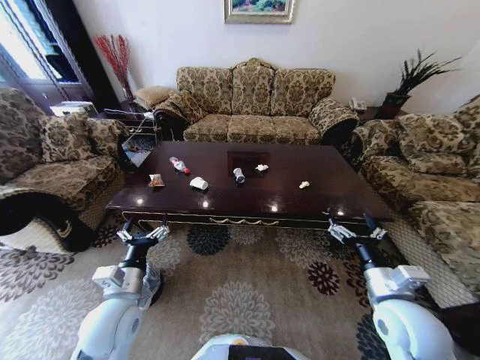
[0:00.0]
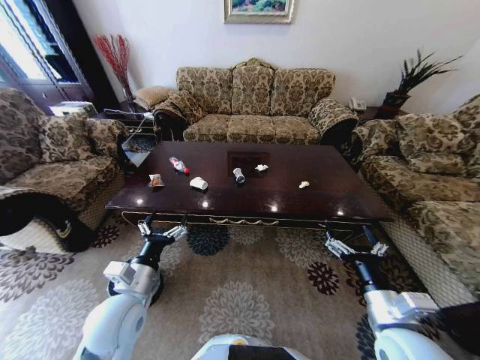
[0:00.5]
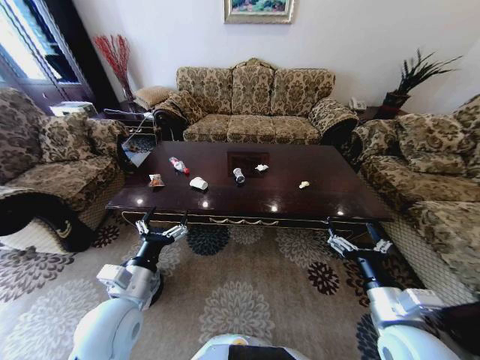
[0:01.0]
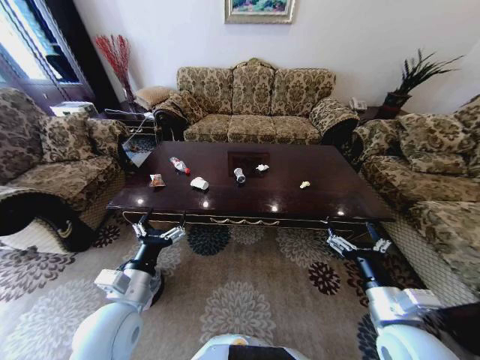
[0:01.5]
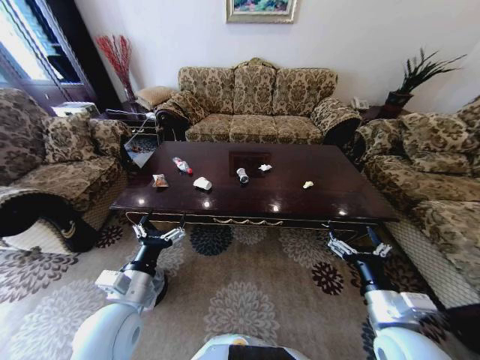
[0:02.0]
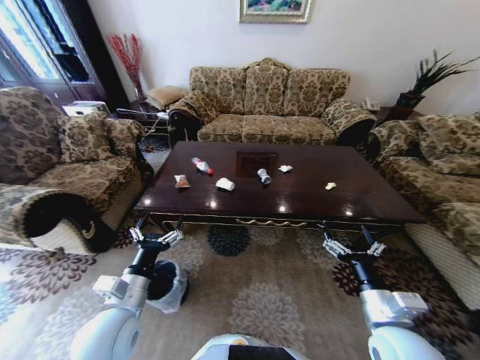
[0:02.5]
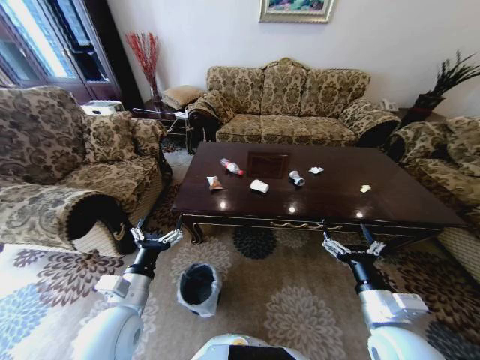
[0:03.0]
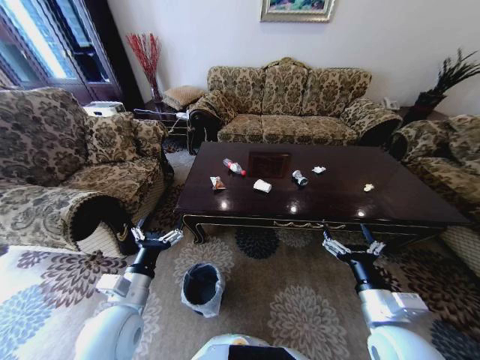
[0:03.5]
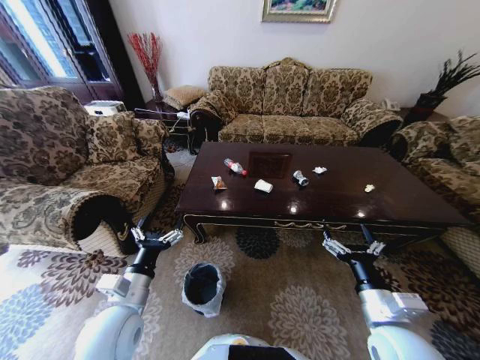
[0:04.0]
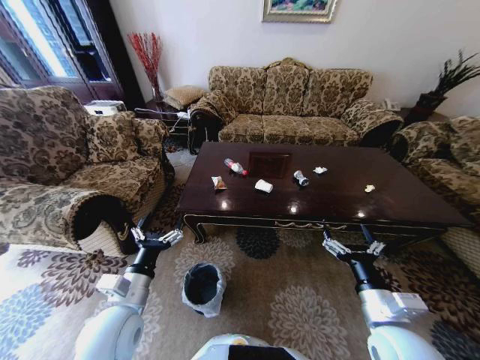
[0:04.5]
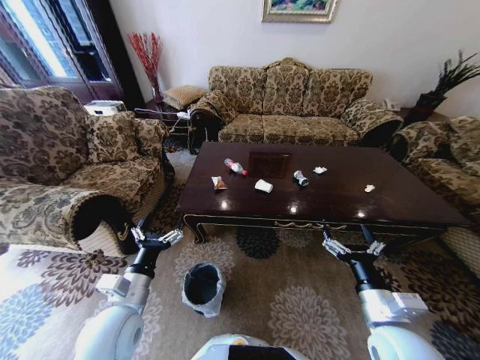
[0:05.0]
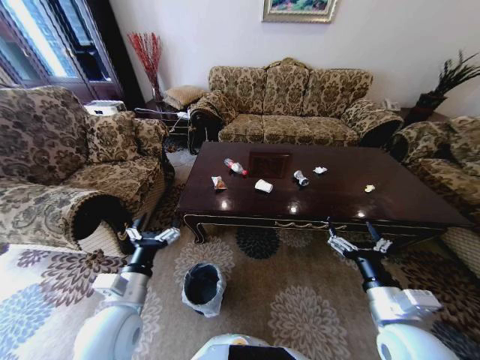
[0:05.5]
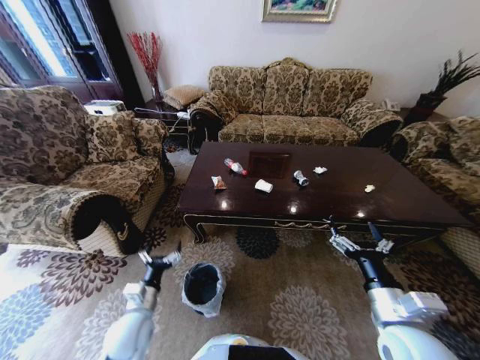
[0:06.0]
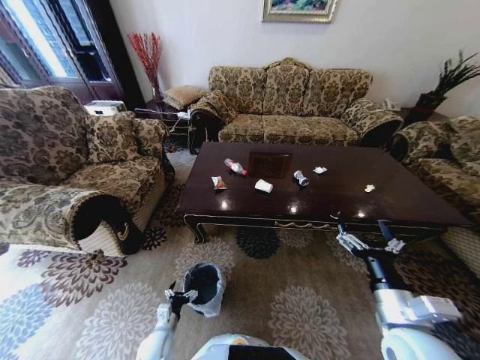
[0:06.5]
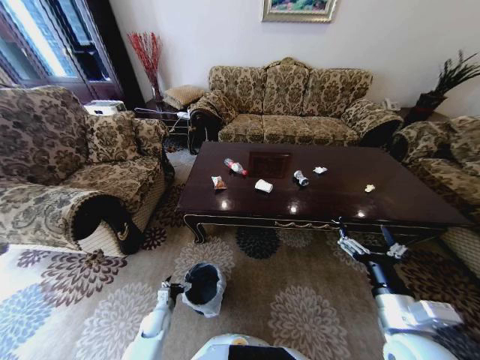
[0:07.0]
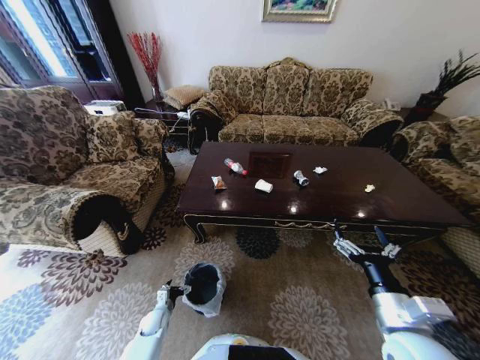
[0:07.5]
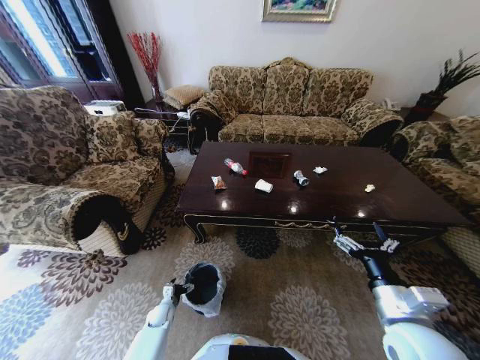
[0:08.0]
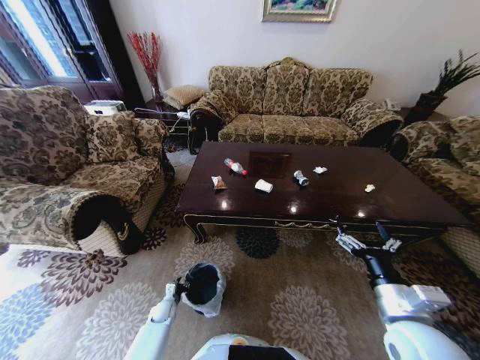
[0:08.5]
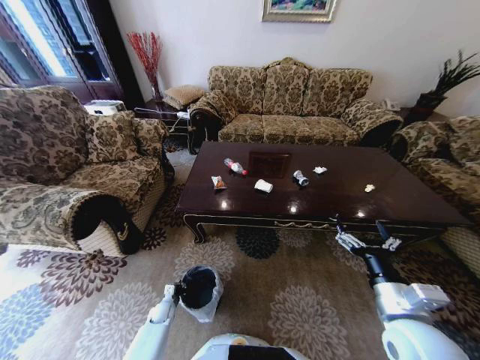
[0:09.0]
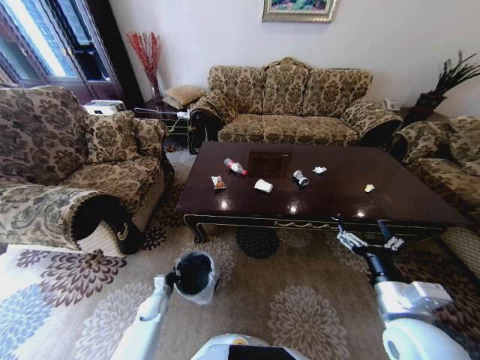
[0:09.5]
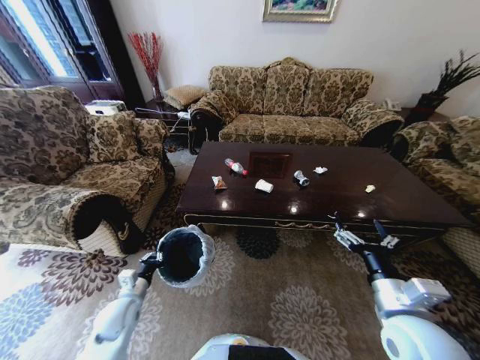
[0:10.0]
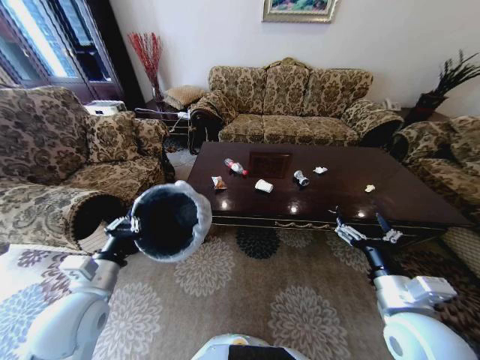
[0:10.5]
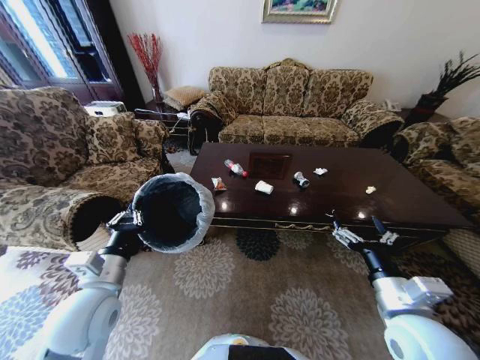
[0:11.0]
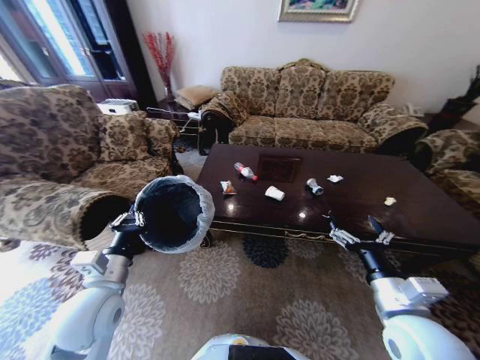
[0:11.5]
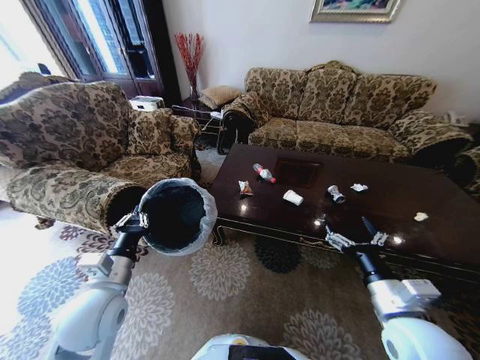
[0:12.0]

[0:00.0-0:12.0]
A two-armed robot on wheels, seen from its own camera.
Task of the whole recording: Move to the front of the table and place the trash on the table into the trash bin.
4.0 to 6.0 s: The left gripper shifts approximately 10 cm downward.
6.0 to 8.0 s: The left gripper heads downward, covering some 30 cm.
8.0 to 10.0 s: The left gripper goes some 20 cm upward, and closes its fingers.
10.0 to 12.0 s: The left gripper shifts some 20 cm upward.

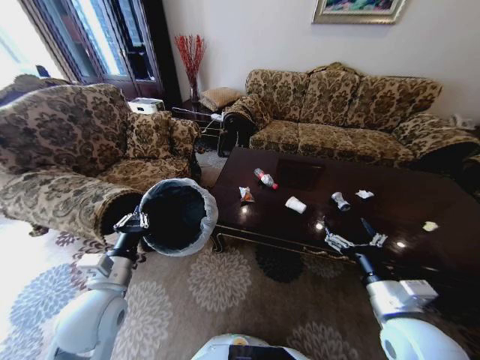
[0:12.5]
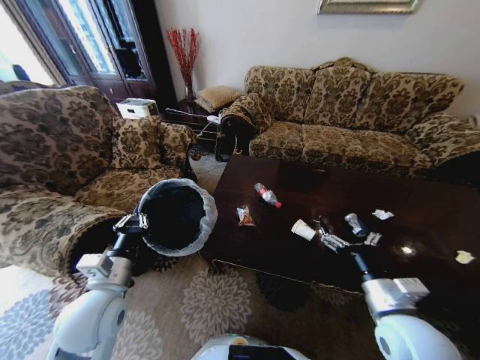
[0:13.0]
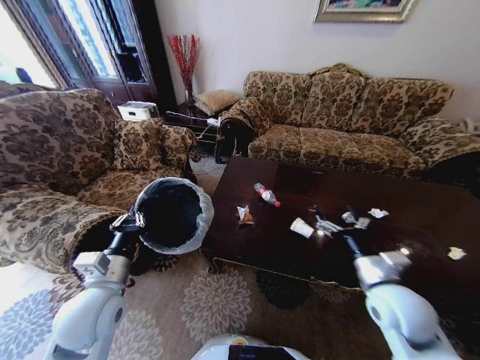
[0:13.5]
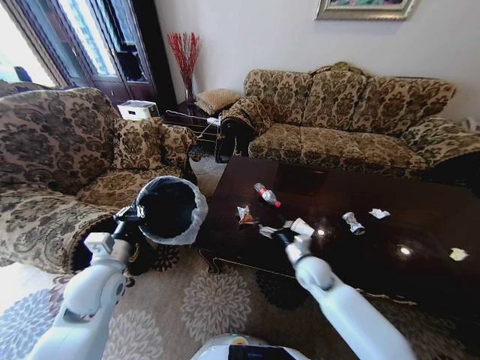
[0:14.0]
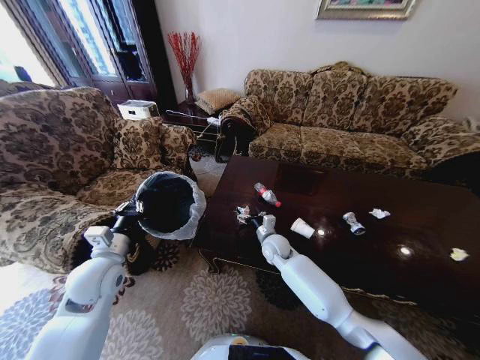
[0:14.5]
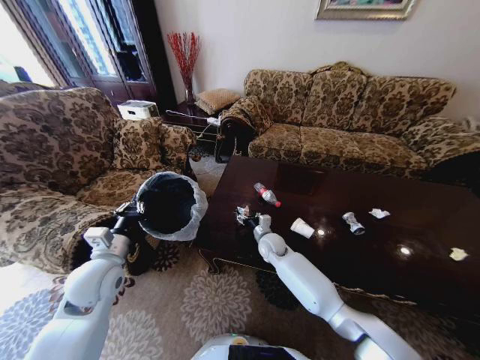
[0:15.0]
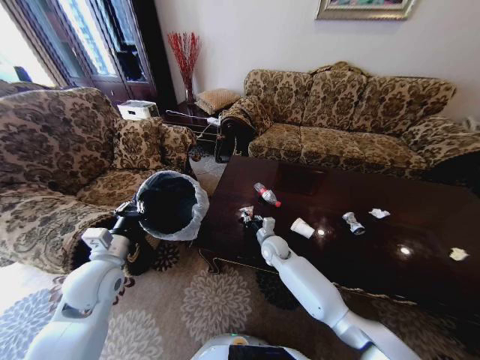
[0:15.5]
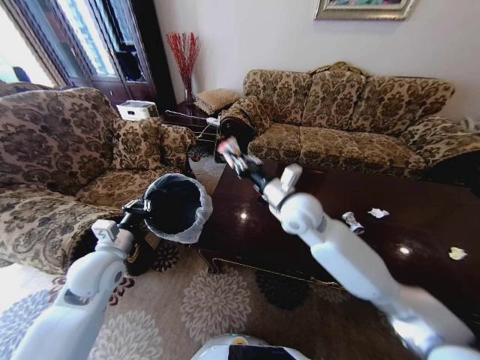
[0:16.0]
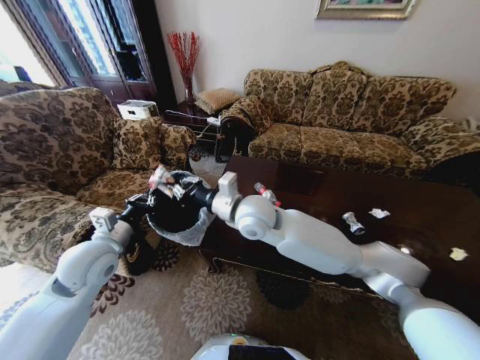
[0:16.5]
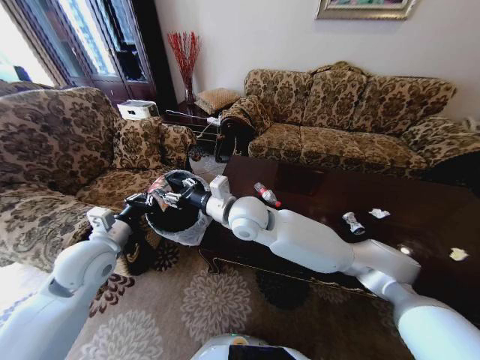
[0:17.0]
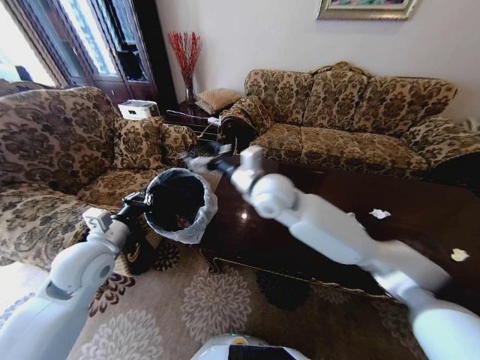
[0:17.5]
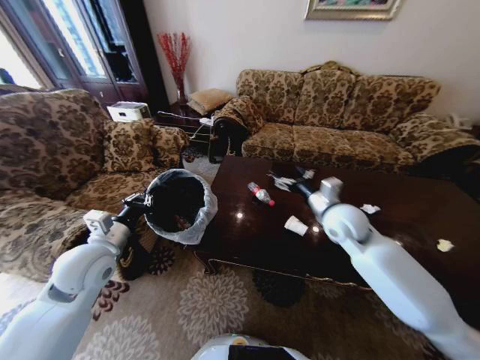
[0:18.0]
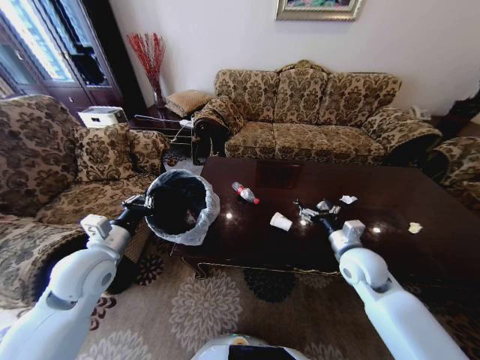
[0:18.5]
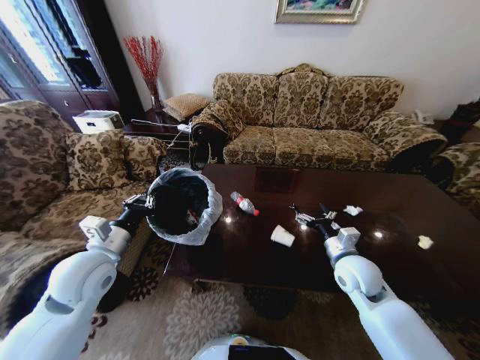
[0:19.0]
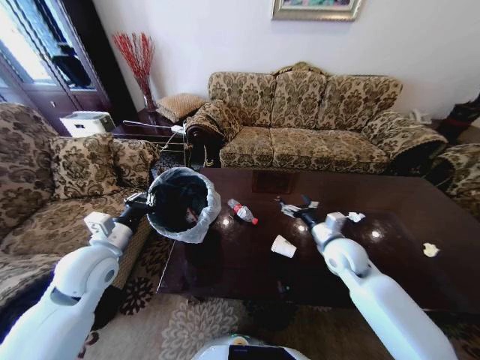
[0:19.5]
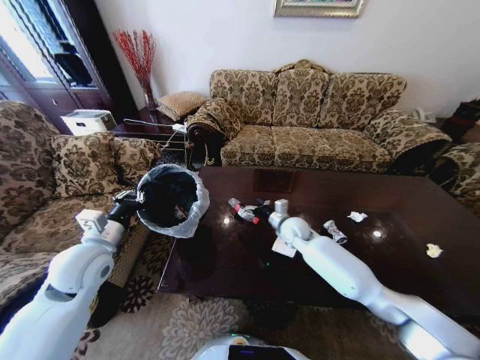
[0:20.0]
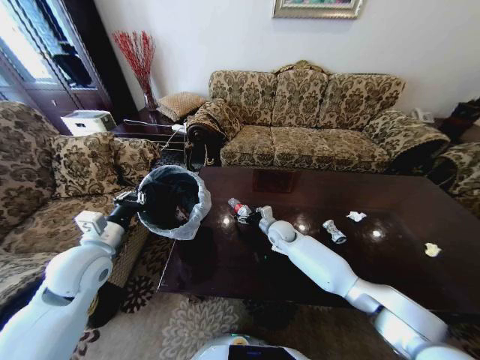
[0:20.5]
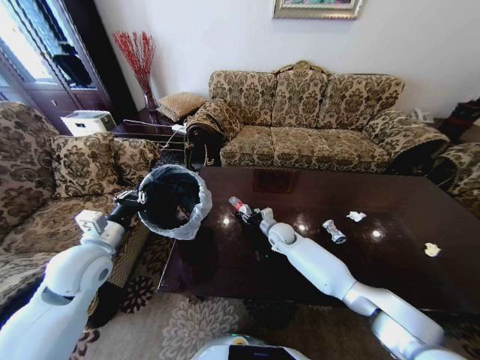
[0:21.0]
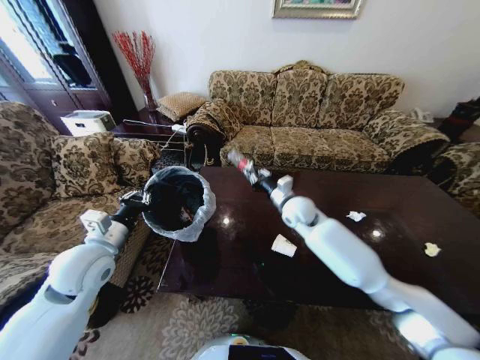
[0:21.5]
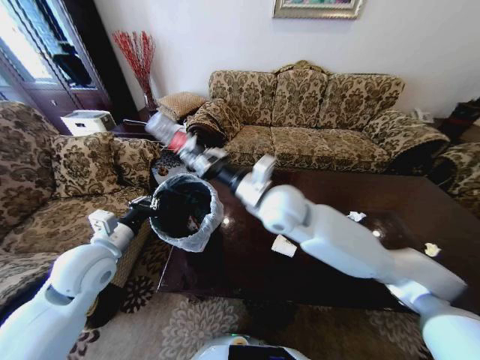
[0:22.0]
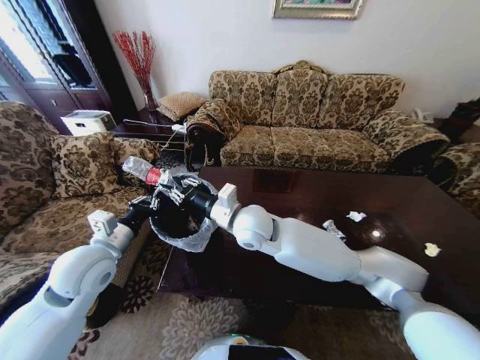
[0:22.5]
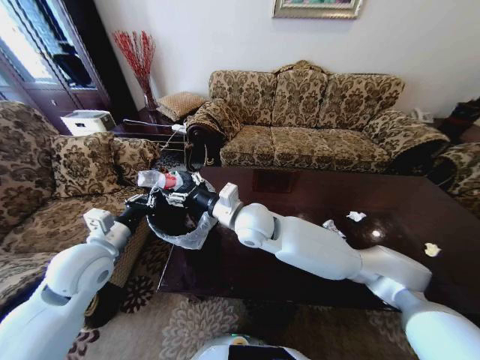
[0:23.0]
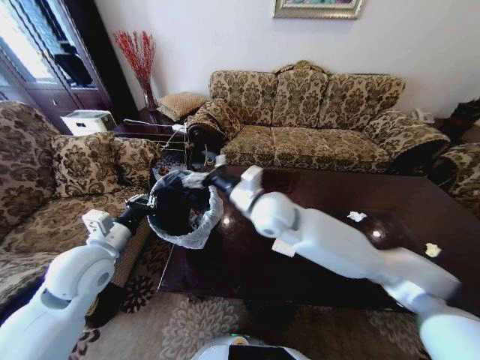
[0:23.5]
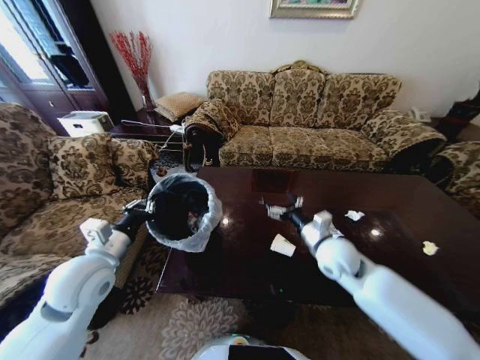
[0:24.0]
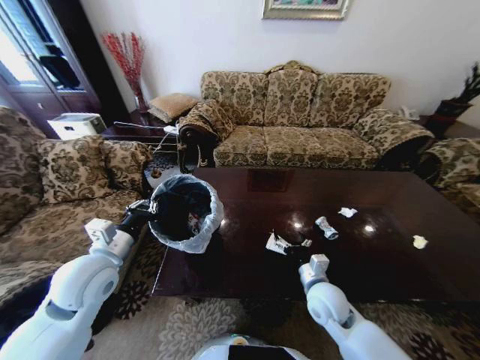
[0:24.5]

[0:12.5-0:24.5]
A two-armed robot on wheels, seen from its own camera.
Task of the whole recording: Move to the front of the table and place the trash on the table into the trash bin.
12.5 to 14.5 s: The right gripper travels forward, to the left and downward by roughly 35 cm, while the left gripper goes roughly 10 cm forward and to the left.
14.5 to 16.5 s: The right gripper goes approximately 25 cm upward and to the left, and closes.
16.5 to 18.5 s: The right gripper moves to the right and downward, some 30 cm, and opens its fingers.
18.5 to 20.5 s: The right gripper shifts approximately 25 cm to the left, forward and downward.
20.5 to 22.5 s: The right gripper is displaced upward, to the left and backward by roughly 30 cm, and closes.
22.5 to 24.5 s: The right gripper travels to the right, downward and backward by about 30 cm, and opens.

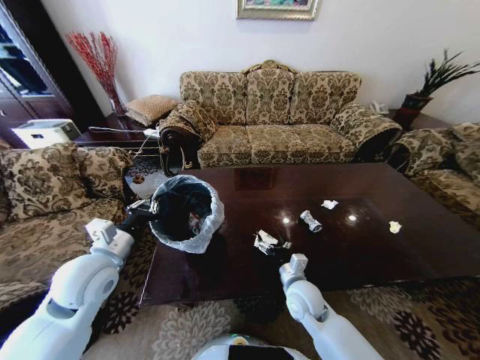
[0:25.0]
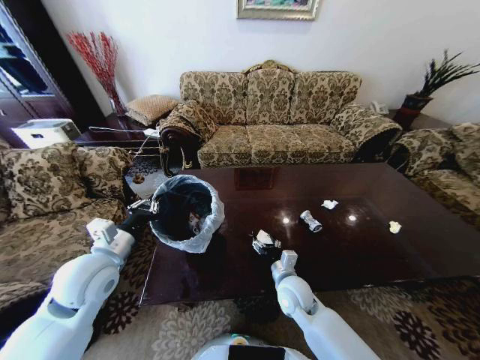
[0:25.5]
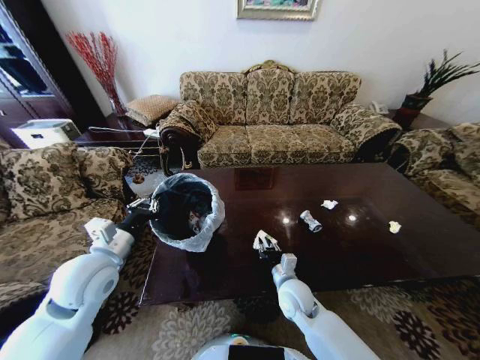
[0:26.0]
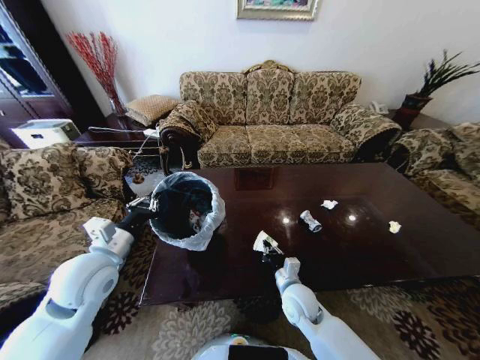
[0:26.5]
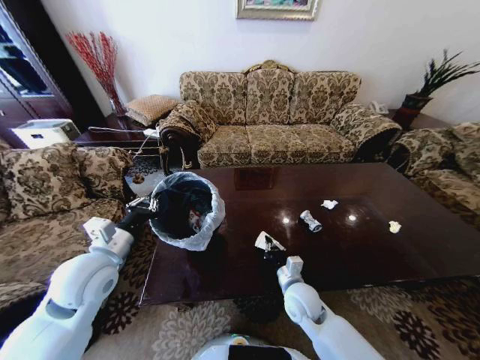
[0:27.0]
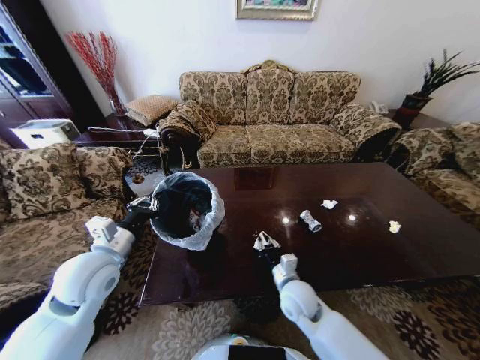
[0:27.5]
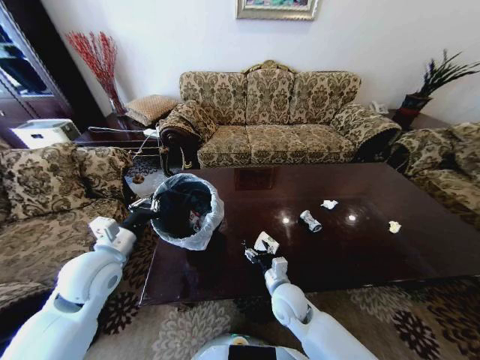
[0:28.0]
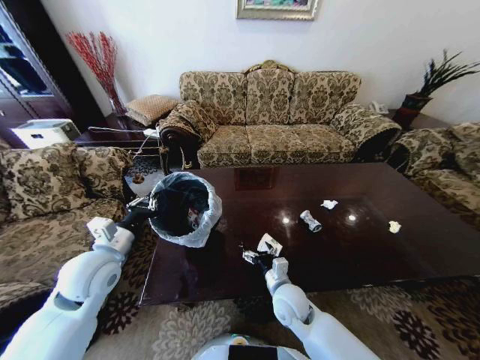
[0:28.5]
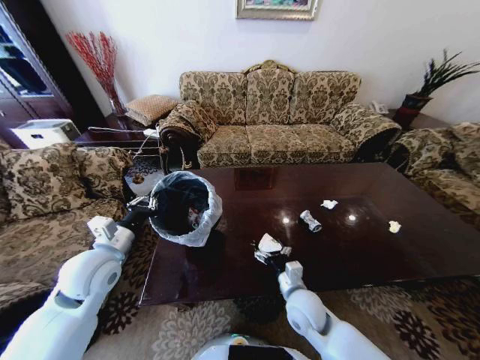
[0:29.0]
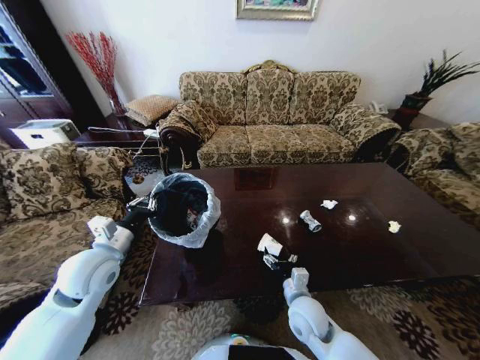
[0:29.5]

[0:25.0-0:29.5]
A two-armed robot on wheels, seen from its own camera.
Task of the whole recording: Move to the front of the table and place the trash on the table into the trash bin.
25.0 to 27.0 s: The right gripper closes.
27.0 to 29.5 s: The right gripper opens its fingers.
